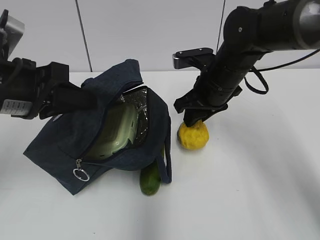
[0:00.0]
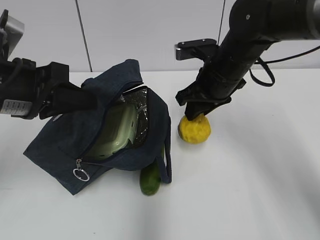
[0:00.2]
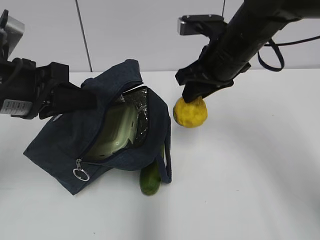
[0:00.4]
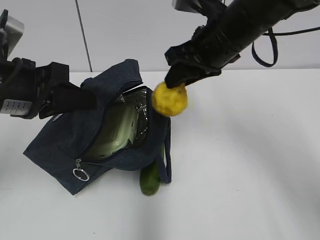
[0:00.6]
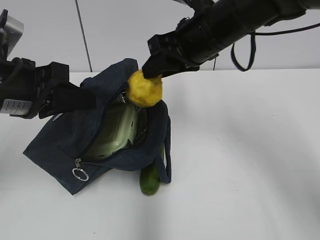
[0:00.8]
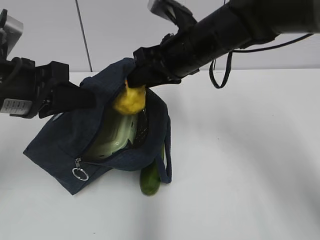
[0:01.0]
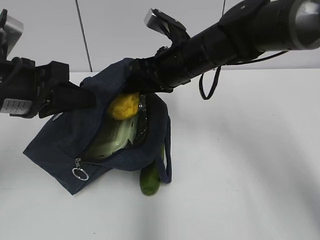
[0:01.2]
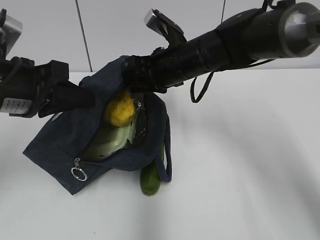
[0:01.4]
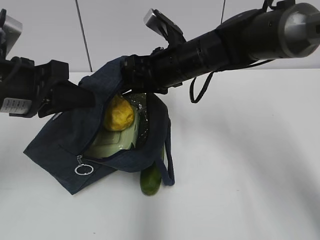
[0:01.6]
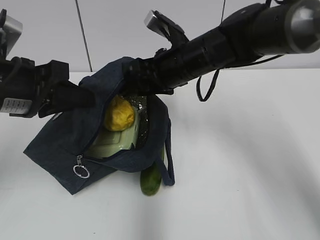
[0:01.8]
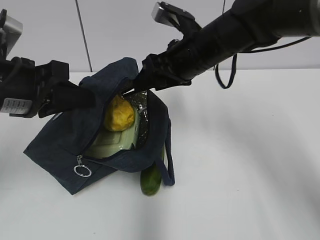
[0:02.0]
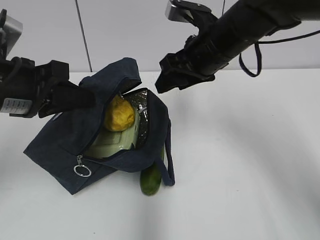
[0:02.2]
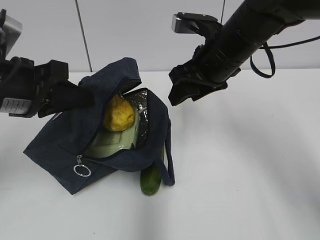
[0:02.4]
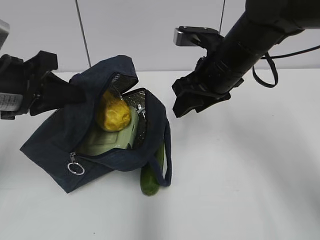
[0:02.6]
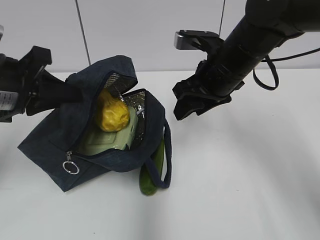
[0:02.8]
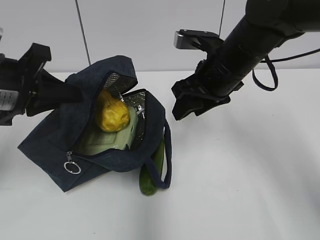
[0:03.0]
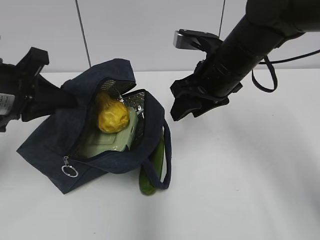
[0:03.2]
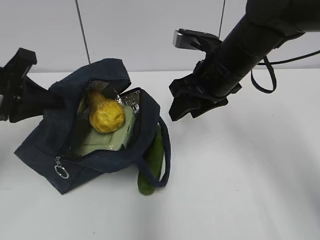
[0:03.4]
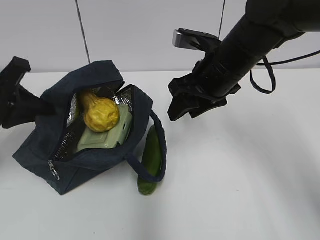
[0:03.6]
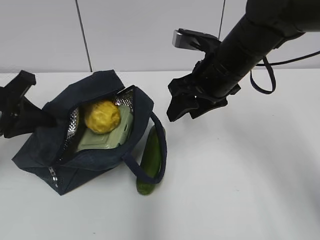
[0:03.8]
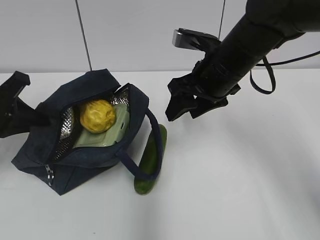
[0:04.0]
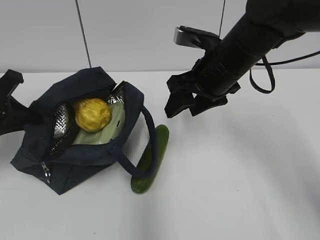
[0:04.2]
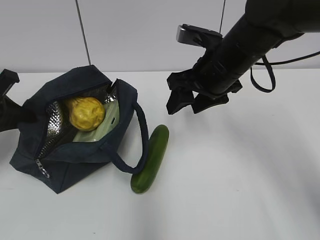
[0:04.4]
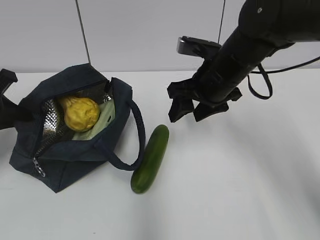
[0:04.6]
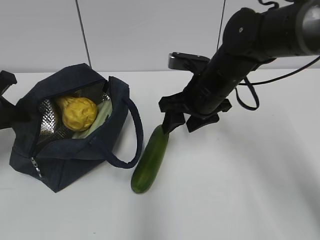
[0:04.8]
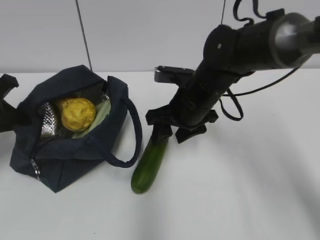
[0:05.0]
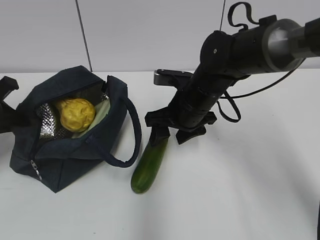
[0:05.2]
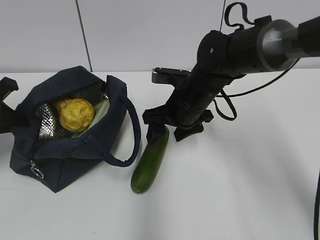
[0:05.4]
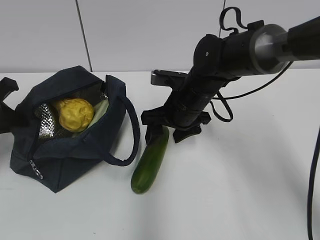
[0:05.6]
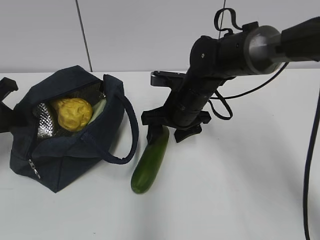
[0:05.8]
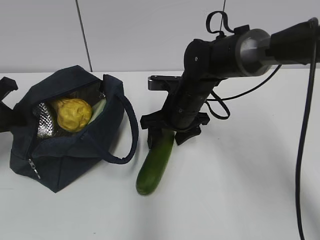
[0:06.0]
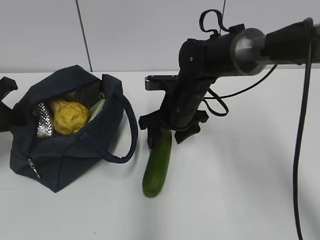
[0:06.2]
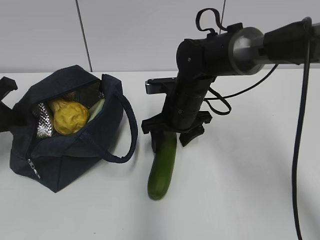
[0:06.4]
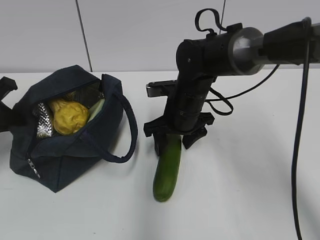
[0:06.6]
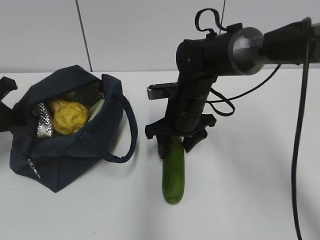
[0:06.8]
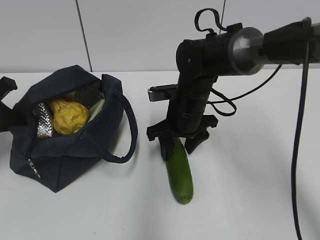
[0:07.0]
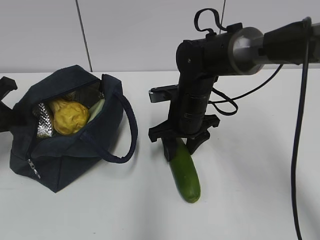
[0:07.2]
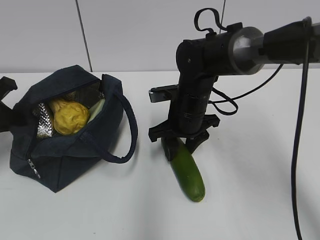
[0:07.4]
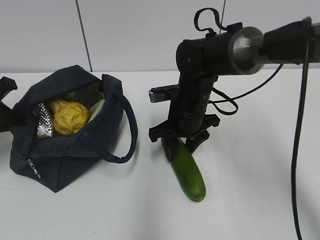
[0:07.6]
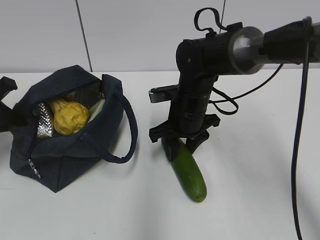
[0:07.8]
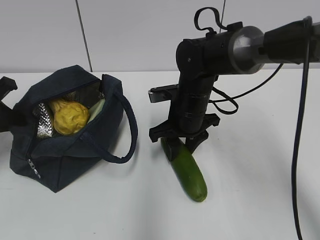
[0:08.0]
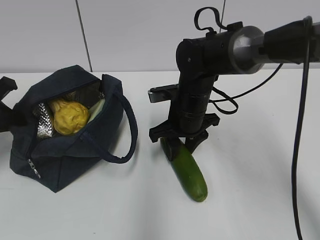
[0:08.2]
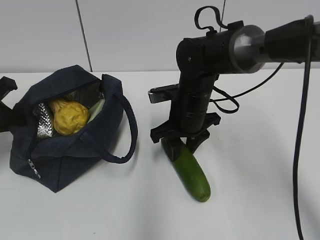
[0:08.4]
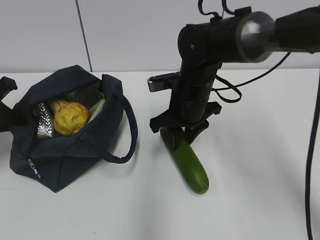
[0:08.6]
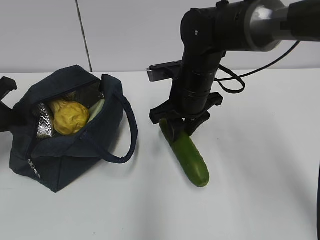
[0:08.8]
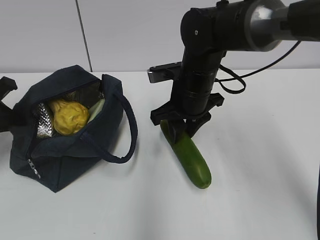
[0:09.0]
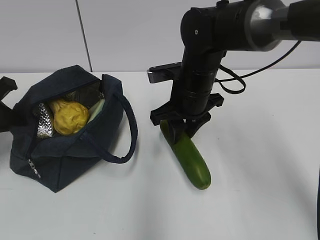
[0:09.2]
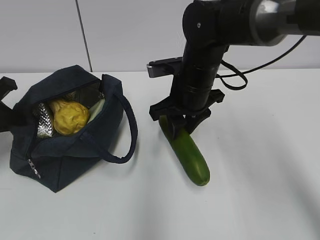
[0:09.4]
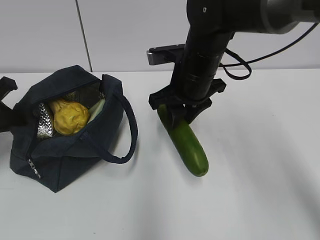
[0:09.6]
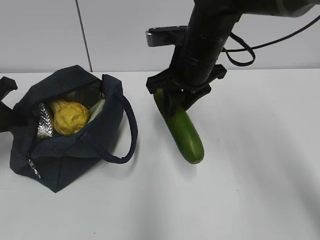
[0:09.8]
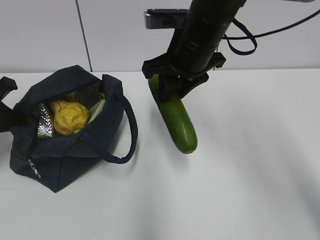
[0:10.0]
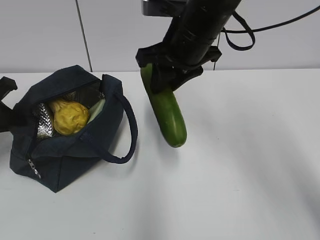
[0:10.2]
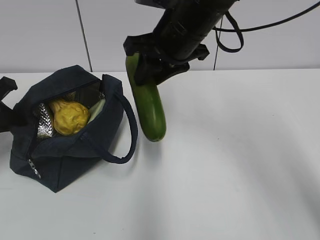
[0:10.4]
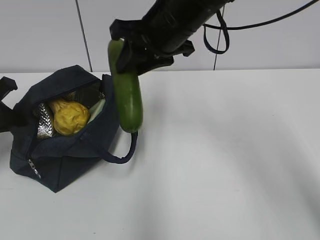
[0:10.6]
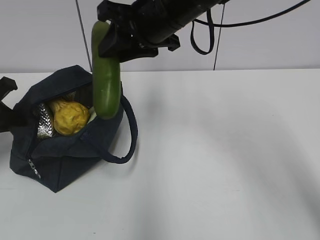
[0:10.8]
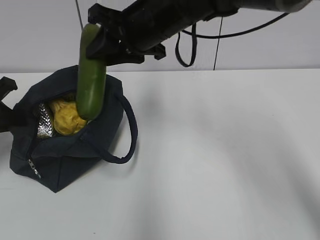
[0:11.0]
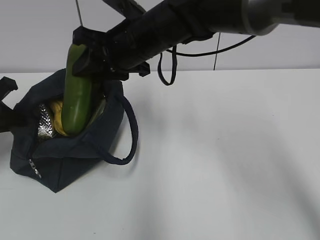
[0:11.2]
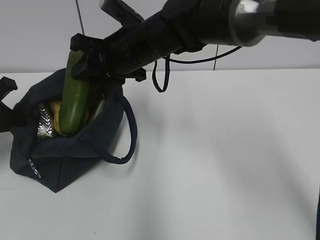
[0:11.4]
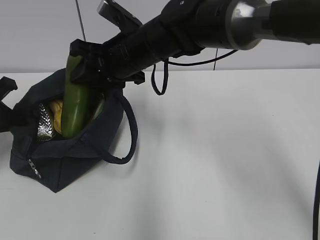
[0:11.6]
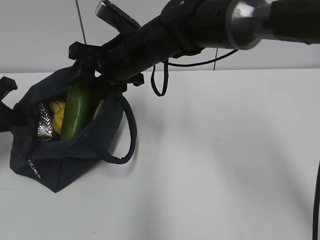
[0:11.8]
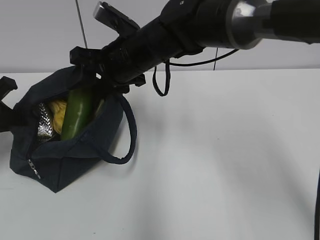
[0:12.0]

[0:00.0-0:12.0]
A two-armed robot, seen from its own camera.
Step, 0:00.0 to 0:01.8: Place it into the bag with your right hand.
Step, 0:02.0 to 0:07.6: Grab the cucumber with your right hand.
0:00.0 to 0:01.6: The right gripper shifts some 5 cm to the left, and moves some 10 cm upward and comes back.
0:01.6 to 0:03.0: The right gripper moves to the right, roughly 5 cm.
0:03.0 to 0:04.4: The left gripper goes approximately 10 cm to the left.
0:04.4 to 0:06.0: The right gripper travels downward and to the left by about 10 cm.
0:06.0 to 0:09.0: The grippers move only a little.
0:09.0 to 0:10.4: The right gripper is displaced upward by about 10 cm.
0:10.4 to 0:12.0: The right gripper is displaced to the left and downward by about 10 cm.

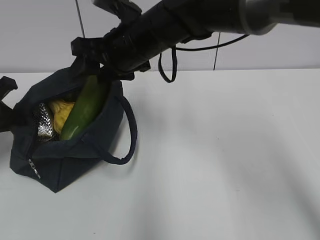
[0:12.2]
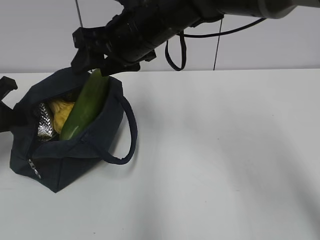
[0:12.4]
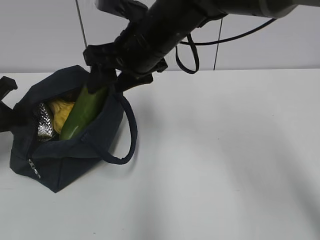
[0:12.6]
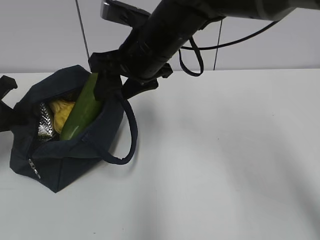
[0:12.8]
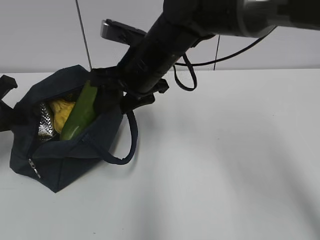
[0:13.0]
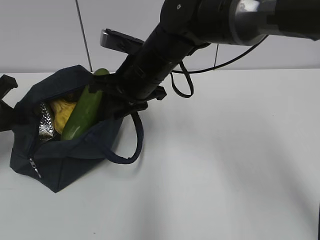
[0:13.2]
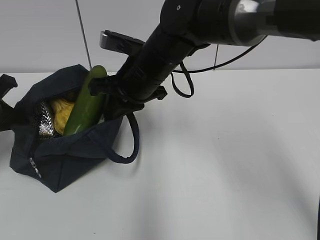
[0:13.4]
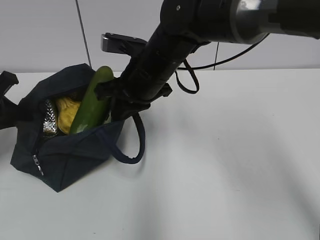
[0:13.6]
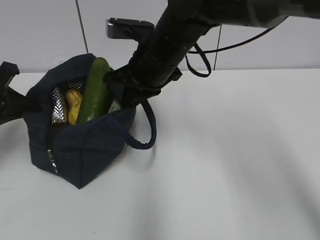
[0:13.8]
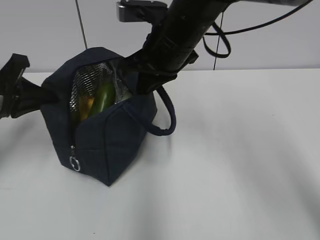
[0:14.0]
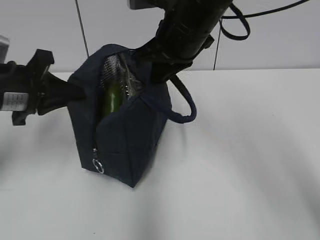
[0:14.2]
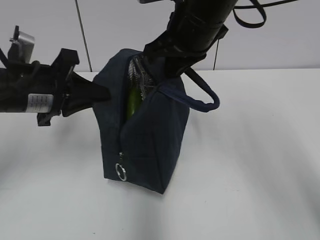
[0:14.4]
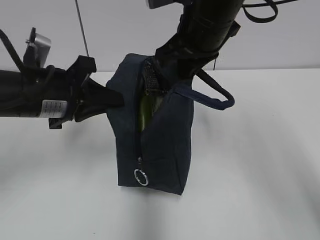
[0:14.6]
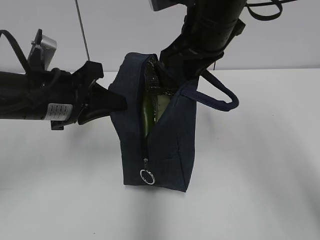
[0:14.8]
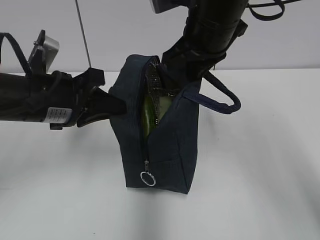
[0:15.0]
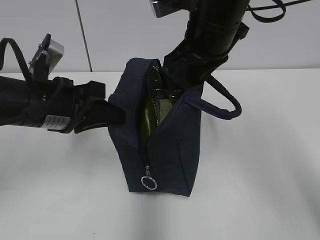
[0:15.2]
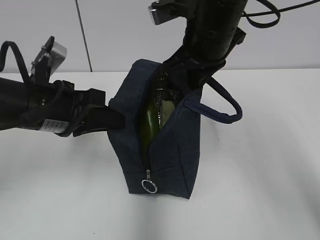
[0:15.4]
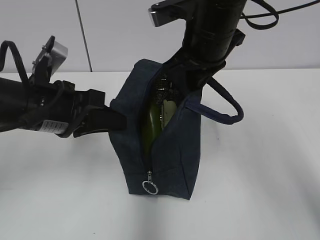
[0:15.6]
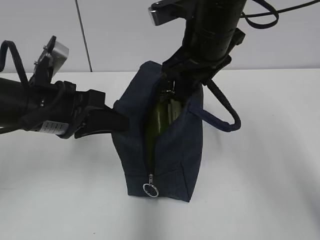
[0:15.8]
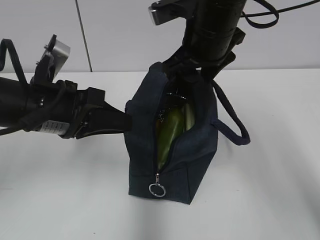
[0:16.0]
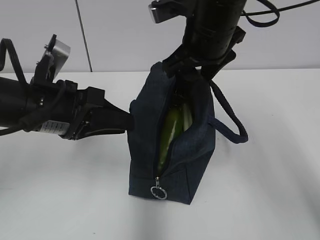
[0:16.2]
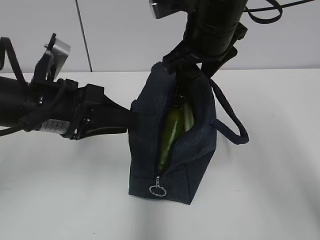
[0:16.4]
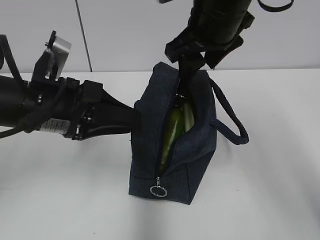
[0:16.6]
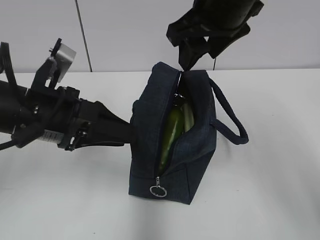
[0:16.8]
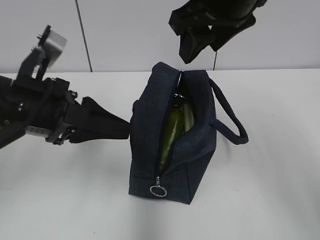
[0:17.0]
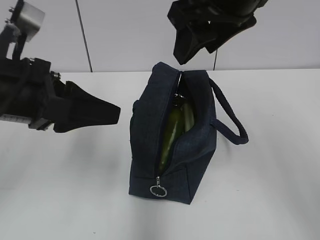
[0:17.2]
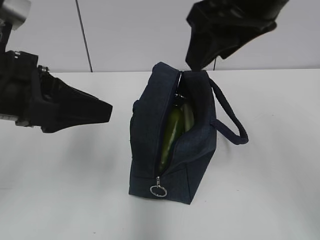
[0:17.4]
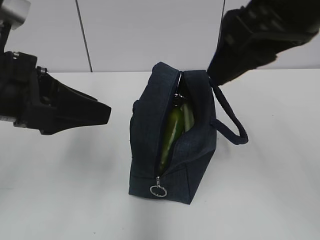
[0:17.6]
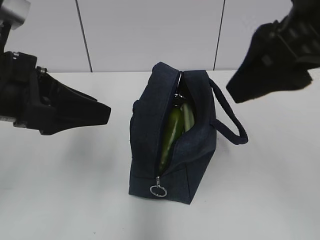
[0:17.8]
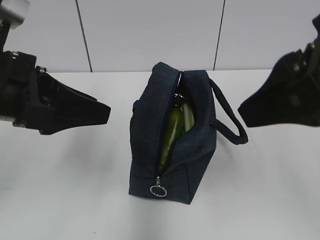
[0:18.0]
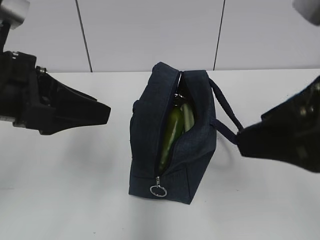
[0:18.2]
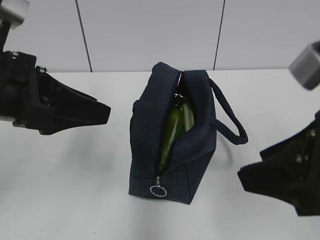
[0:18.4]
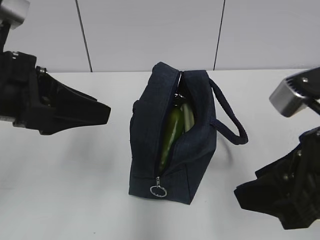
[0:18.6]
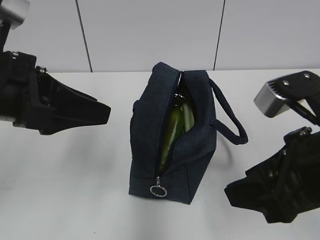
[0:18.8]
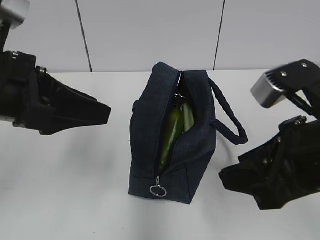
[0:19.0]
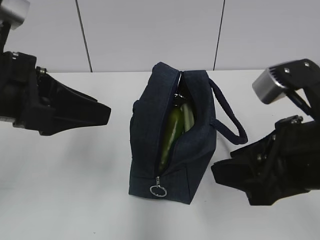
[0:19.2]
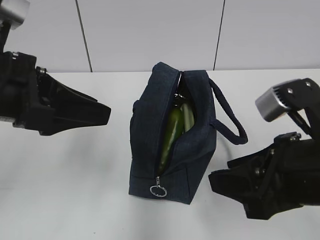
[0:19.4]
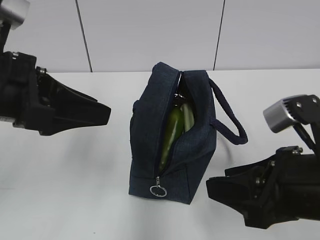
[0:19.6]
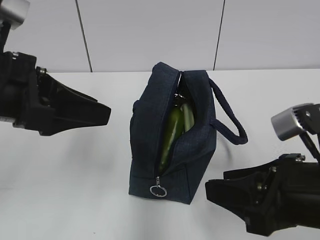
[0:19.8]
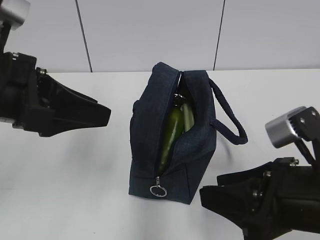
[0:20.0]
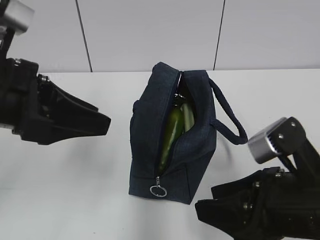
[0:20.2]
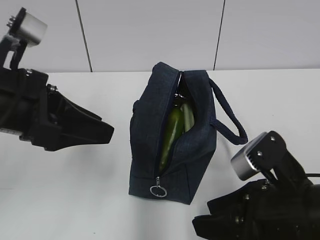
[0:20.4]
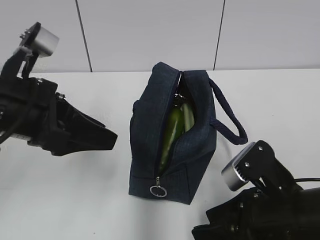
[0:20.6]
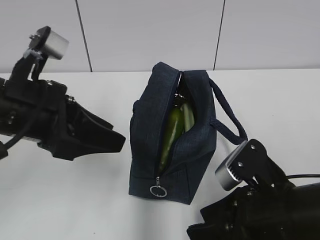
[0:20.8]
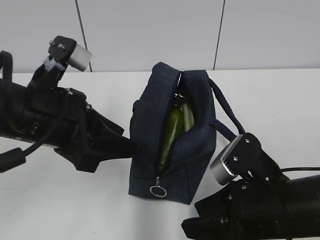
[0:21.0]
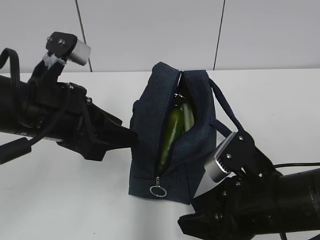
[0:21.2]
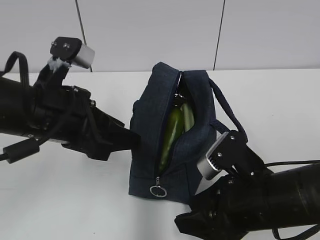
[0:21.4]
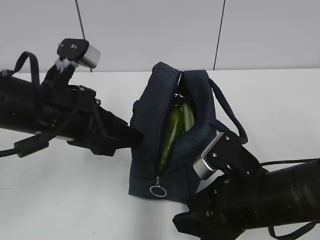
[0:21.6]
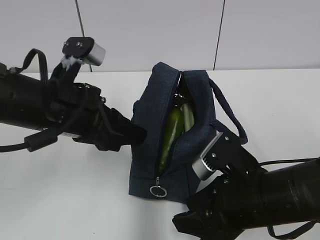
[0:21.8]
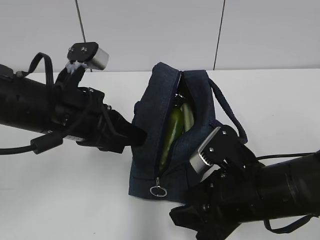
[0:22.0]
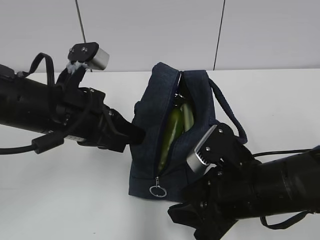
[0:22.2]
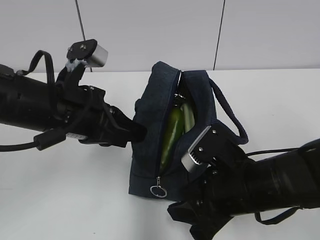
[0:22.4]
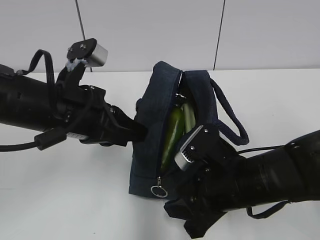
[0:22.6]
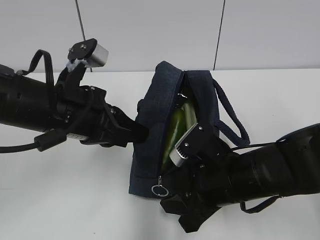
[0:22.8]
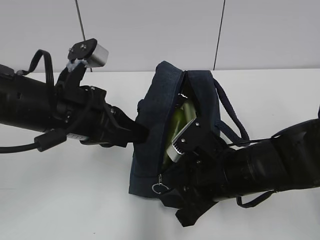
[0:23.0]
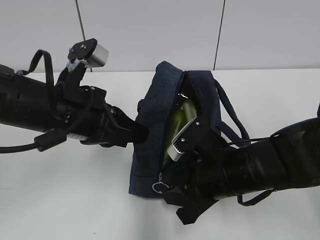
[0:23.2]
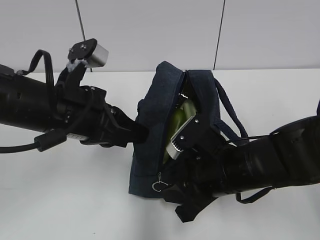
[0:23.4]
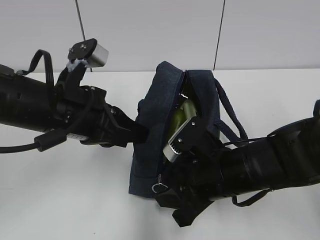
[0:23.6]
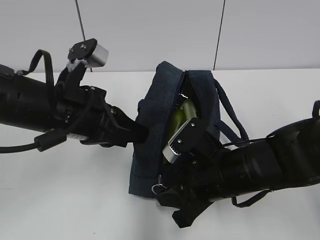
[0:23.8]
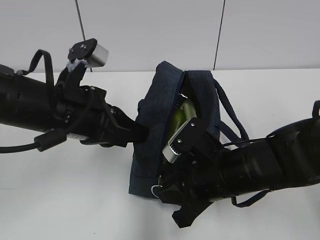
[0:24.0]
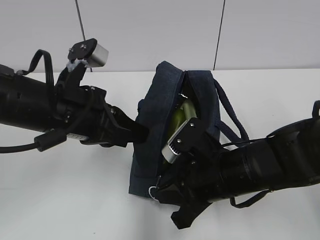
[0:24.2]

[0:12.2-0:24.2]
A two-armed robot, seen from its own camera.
Step, 0:12.4 to 0:13.4: Grab the lunch bag with your right hand.
Step, 0:13.6 to 0:16.2: Move the lunch bag to the right.
0:12.2 to 0:13.8: The right gripper closes its fingers.
0:13.8 to 0:15.2: The left gripper goes some 15 cm to the right. Meanwhile the right gripper goes roughly 10 cm to the right and upward.
0:15.2 to 0:16.6: The left gripper opens. The right gripper opens up.
0:16.6 to 0:18.2: The right gripper travels backward by roughly 20 cm. The left gripper moves upward, some 5 cm.
0:18.2 to 0:19.8: The right gripper heads downward, covering roughly 10 cm.
0:19.8 to 0:21.2: The right gripper moves downward, roughly 5 cm, while the left gripper ends up about 5 cm from where it was.
0:21.2 to 0:22.6: The left gripper closes its fingers. The right gripper moves roughly 5 cm.
0:22.6 to 0:24.2: The right gripper closes its fingers.
